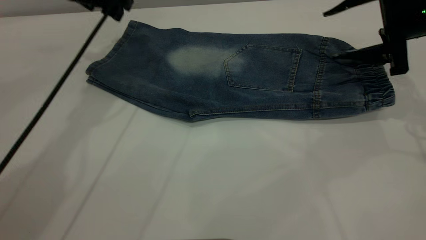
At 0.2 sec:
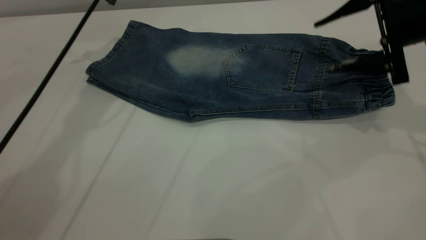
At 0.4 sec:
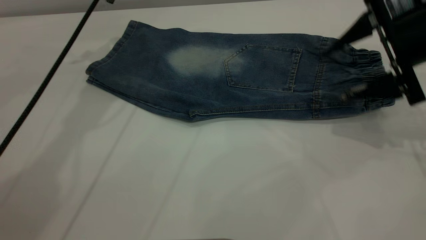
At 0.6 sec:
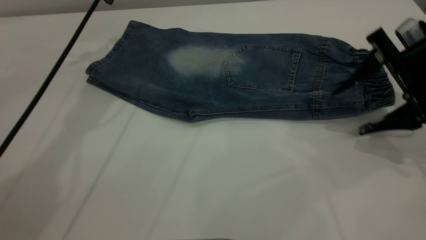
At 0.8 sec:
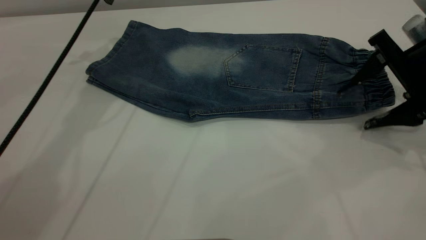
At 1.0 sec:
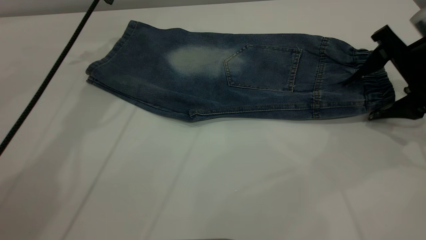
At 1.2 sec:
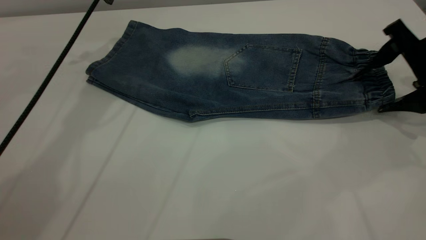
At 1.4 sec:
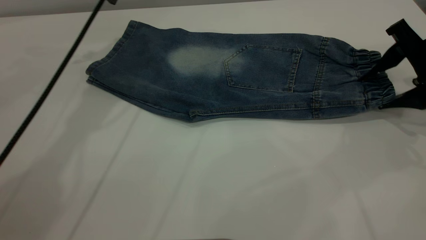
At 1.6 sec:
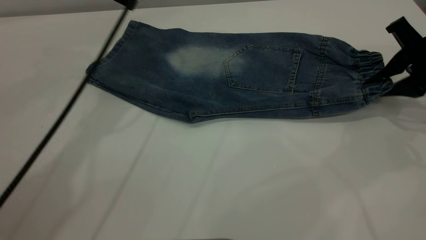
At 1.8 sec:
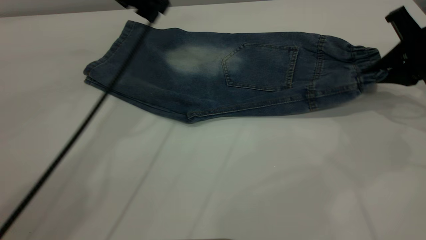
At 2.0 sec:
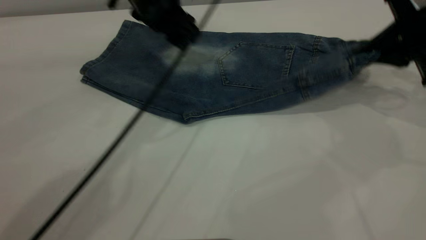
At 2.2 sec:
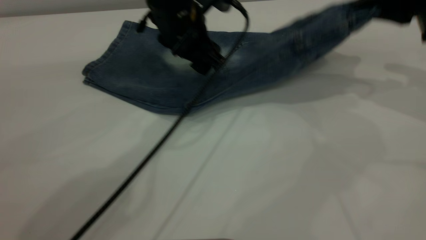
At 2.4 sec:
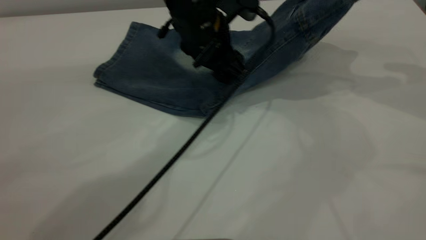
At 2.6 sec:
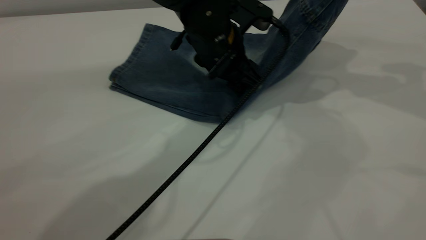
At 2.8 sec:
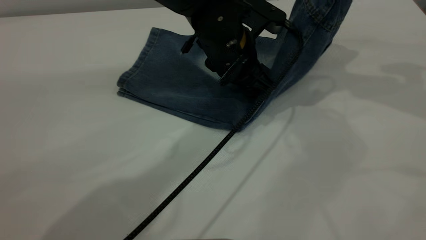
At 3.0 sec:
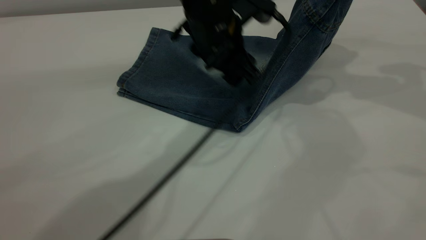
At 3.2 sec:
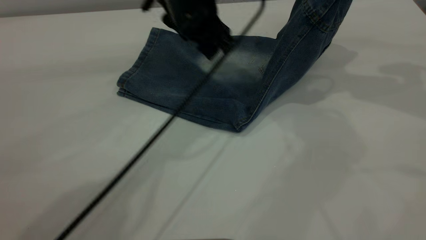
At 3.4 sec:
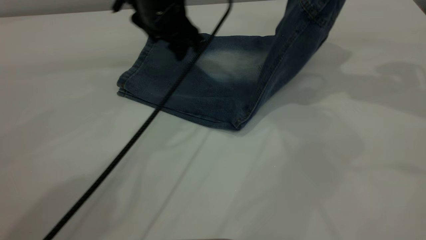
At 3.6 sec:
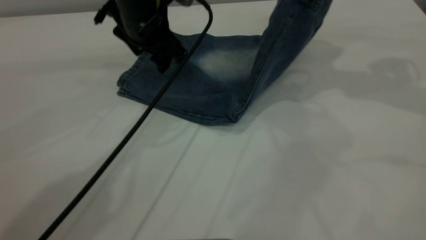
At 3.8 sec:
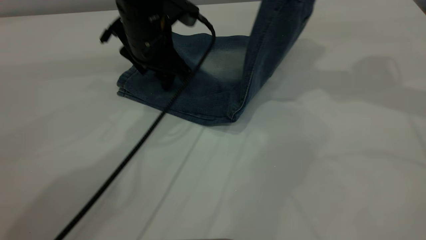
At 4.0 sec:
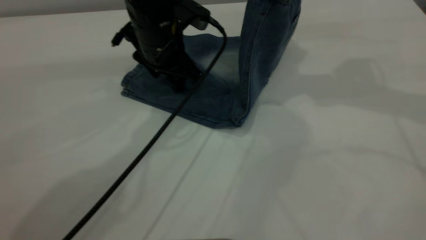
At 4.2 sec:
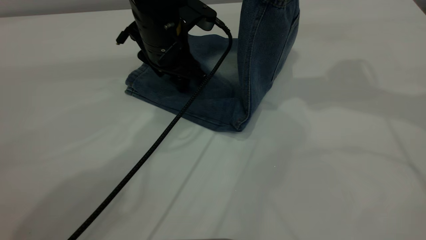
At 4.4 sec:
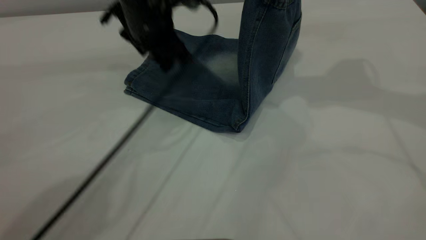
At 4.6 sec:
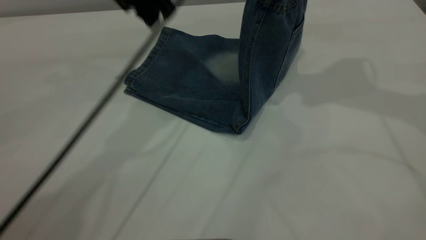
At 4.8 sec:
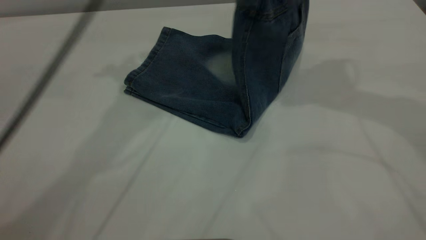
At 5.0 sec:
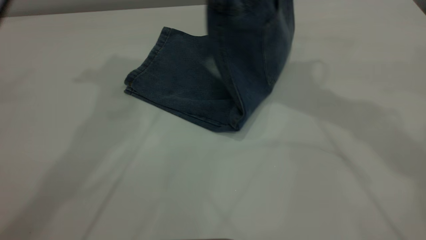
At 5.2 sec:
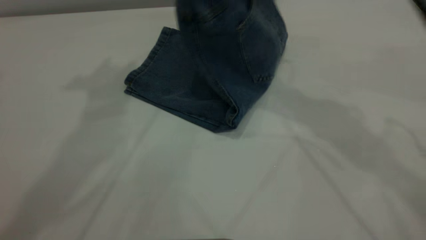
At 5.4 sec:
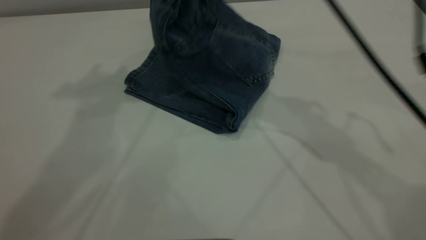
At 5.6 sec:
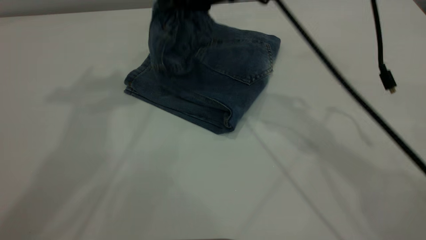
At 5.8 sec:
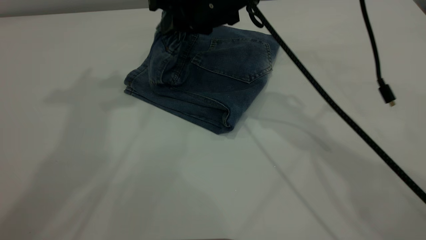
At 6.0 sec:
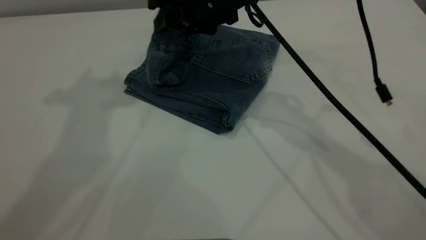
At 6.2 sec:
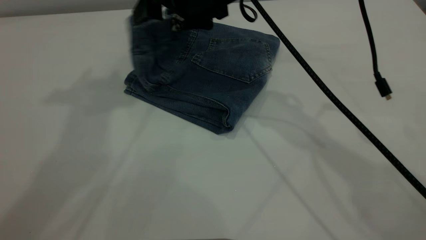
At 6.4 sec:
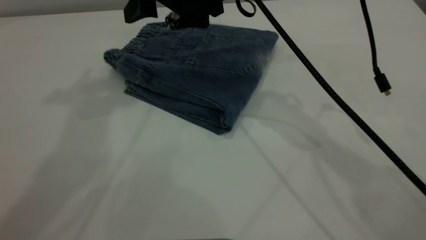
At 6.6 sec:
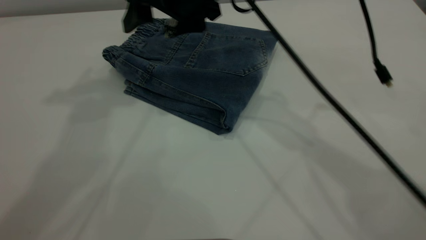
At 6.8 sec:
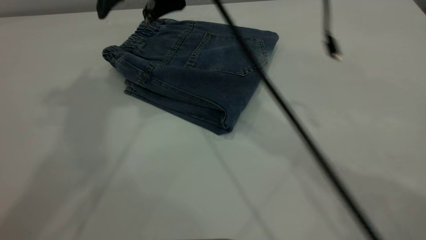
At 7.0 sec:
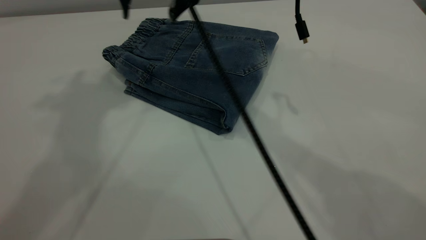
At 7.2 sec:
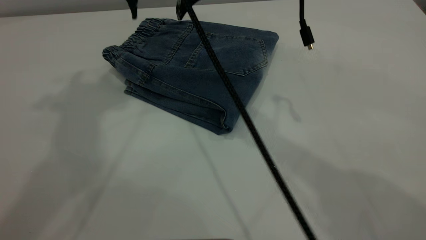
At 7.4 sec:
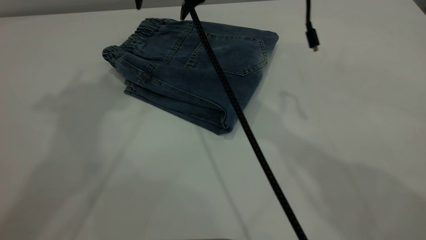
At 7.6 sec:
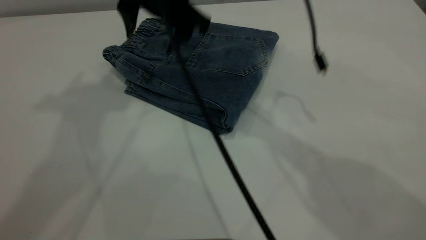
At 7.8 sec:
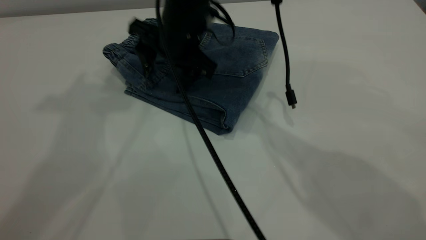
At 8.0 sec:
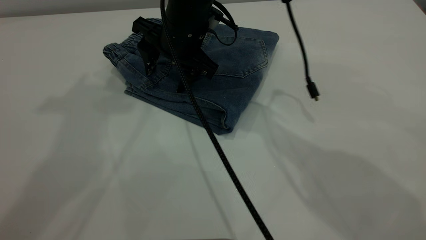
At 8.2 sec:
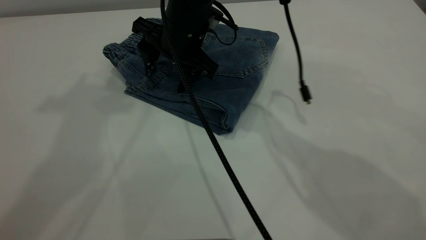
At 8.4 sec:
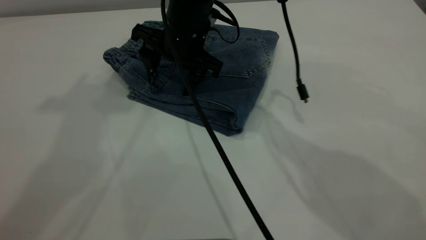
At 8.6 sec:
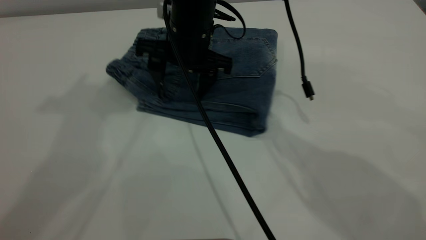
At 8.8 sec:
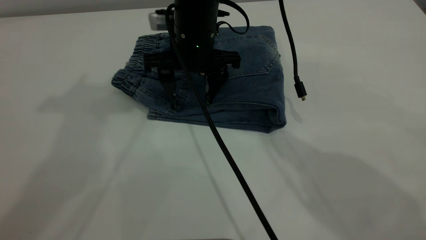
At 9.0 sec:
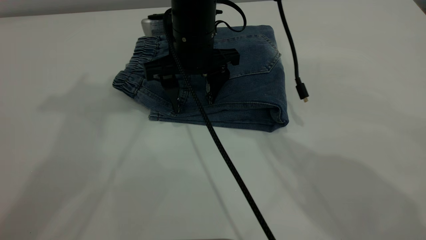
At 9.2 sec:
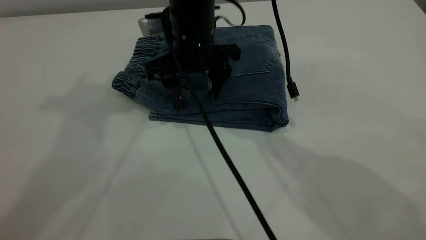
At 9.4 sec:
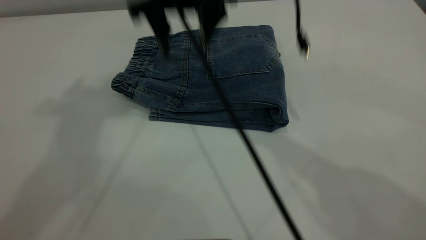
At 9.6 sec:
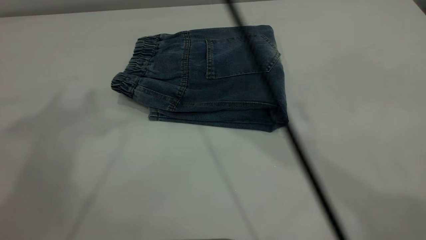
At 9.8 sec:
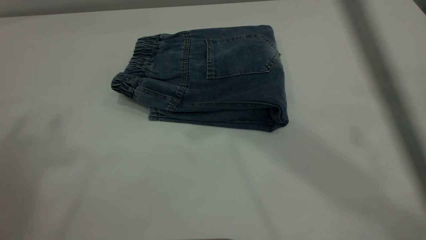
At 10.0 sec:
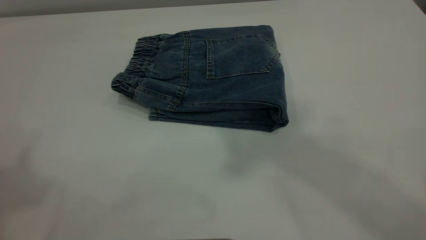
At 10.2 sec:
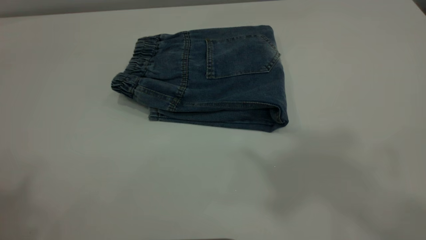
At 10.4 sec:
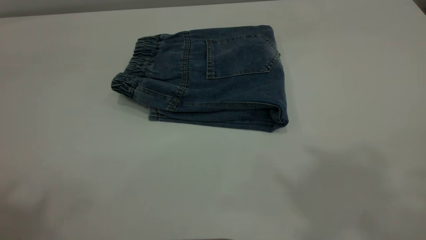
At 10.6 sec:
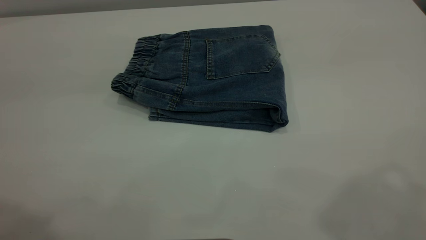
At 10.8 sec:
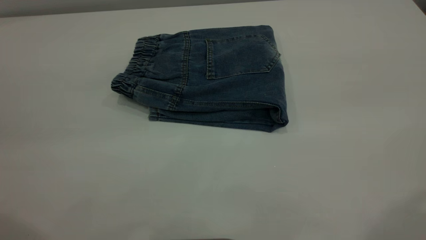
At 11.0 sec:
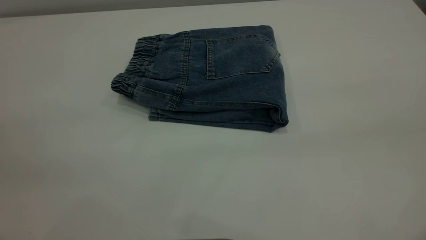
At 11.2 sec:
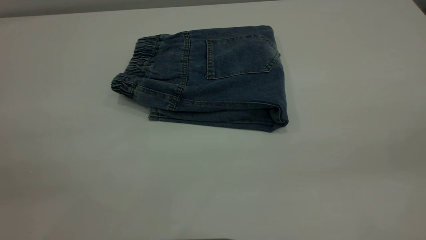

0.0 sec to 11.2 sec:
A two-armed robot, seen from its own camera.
Step, 0.2 sec to 6.8 sec: Fold your pants from right to left.
0.0 sec to 1.6 sec: The right gripper moves some 5 cm, and closes.
1.6 sec to 3.2 sec: The right gripper goes some 15 cm upward, while the left gripper goes roughly 15 cm to the right and backward.
3.2 sec to 4.8 sec: The left gripper travels upward and to the left by some 20 cm; the right gripper is displaced to the left by roughly 10 cm.
4.8 sec to 6.4 sec: The right gripper heads to the left and downward, covering roughly 20 cm, and opens up; the left gripper moves upward and backward, approximately 15 cm.
6.4 sec to 8.0 sec: The right gripper goes approximately 5 cm downward.
8.0 sec to 9.6 sec: The left gripper travels backward and upward by roughly 10 cm. The right gripper goes roughly 25 cm upward.
9.6 sec to 11.2 sec: The right gripper heads backward and to the right, covering roughly 40 cm.
